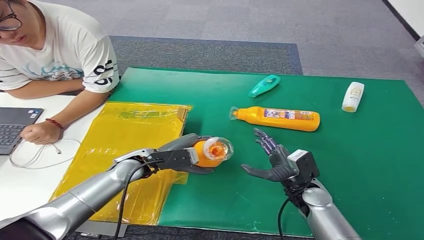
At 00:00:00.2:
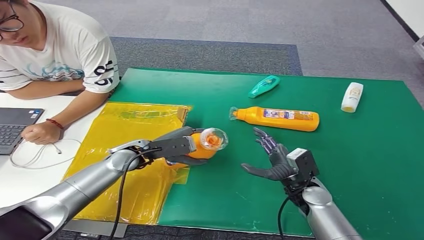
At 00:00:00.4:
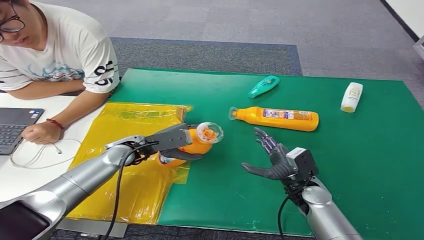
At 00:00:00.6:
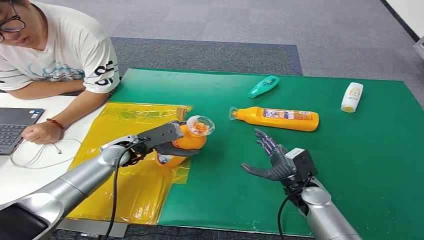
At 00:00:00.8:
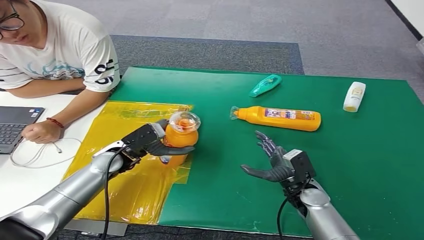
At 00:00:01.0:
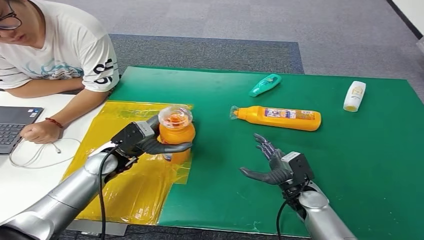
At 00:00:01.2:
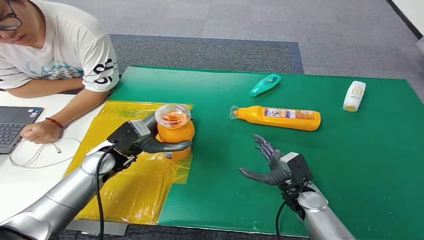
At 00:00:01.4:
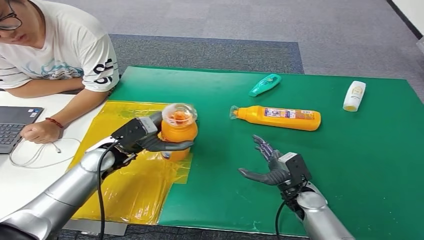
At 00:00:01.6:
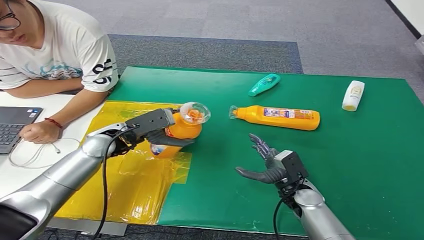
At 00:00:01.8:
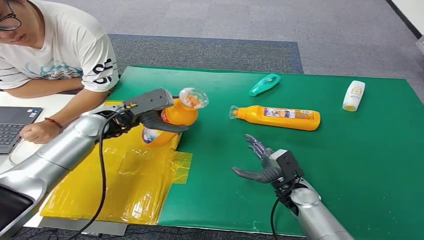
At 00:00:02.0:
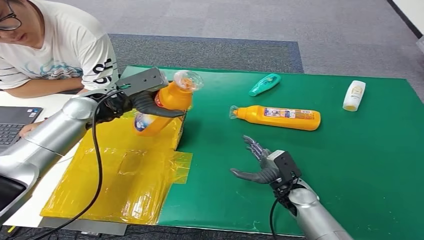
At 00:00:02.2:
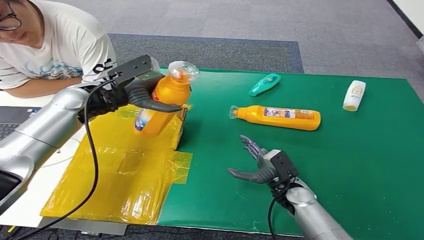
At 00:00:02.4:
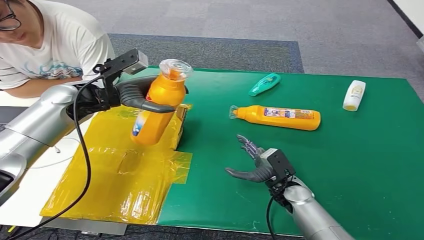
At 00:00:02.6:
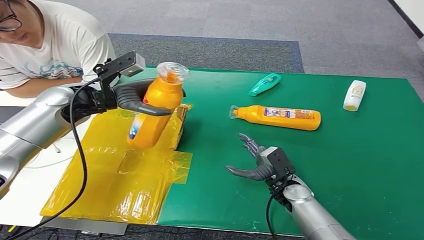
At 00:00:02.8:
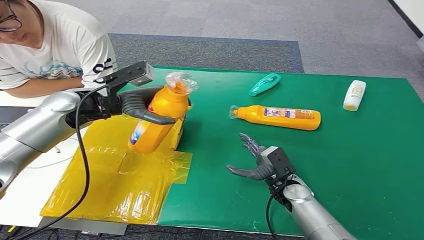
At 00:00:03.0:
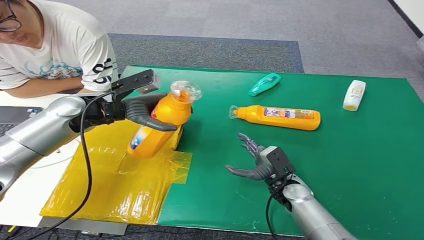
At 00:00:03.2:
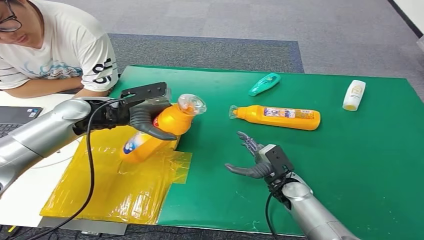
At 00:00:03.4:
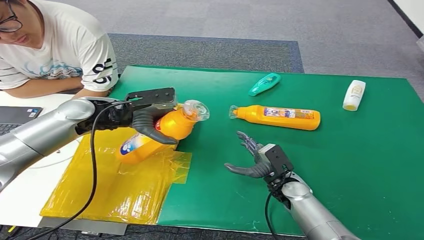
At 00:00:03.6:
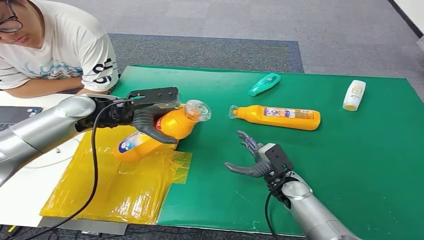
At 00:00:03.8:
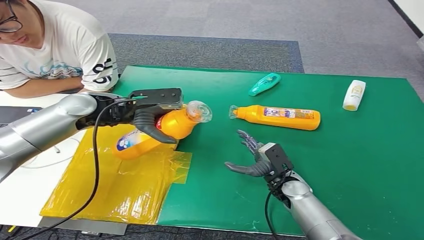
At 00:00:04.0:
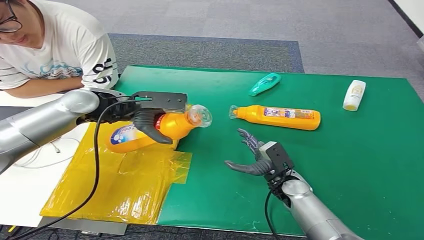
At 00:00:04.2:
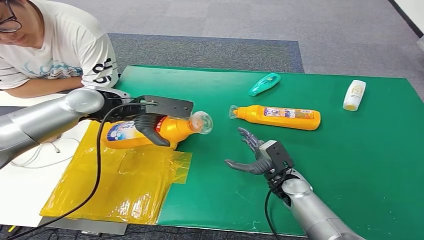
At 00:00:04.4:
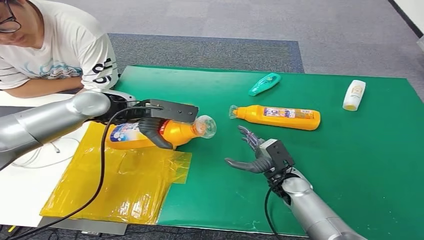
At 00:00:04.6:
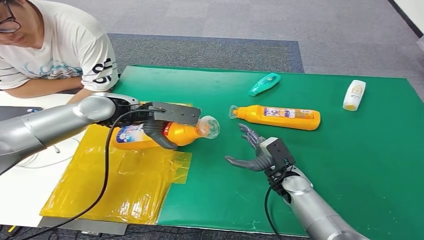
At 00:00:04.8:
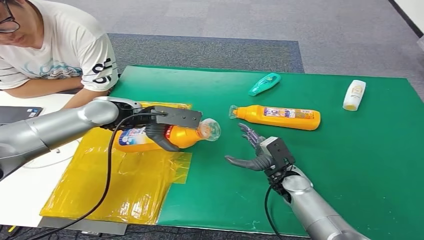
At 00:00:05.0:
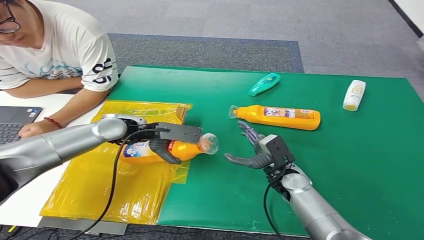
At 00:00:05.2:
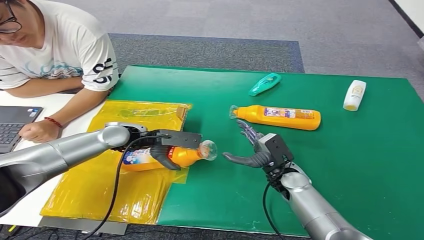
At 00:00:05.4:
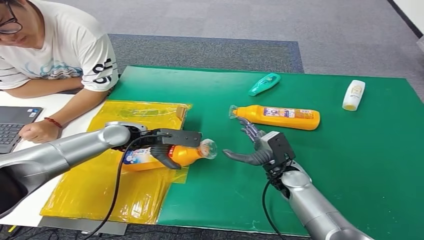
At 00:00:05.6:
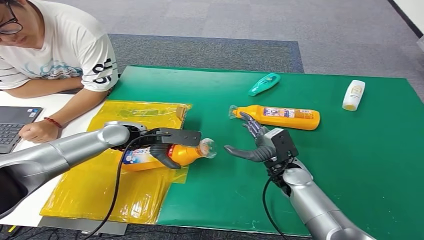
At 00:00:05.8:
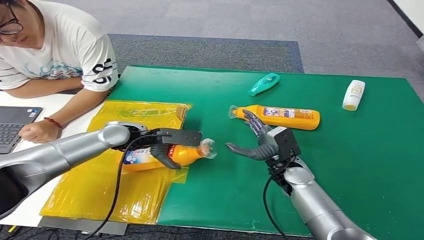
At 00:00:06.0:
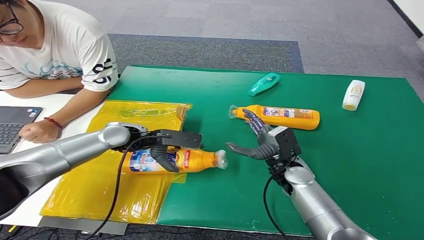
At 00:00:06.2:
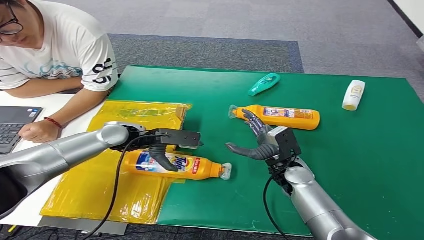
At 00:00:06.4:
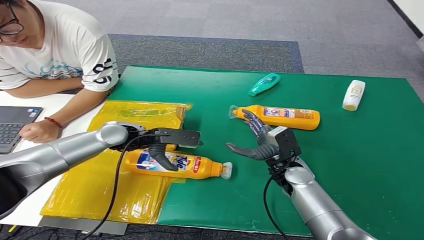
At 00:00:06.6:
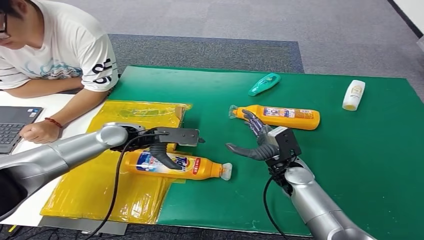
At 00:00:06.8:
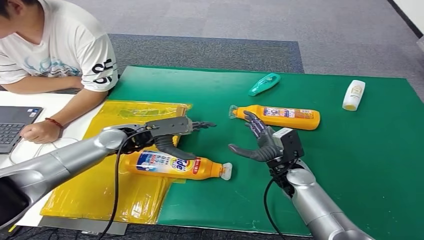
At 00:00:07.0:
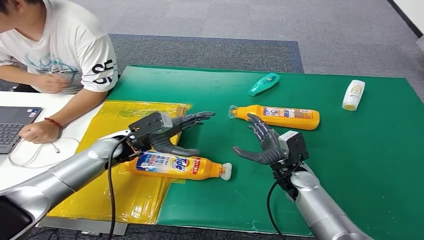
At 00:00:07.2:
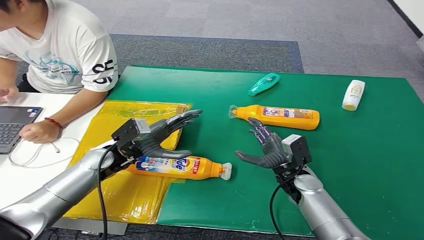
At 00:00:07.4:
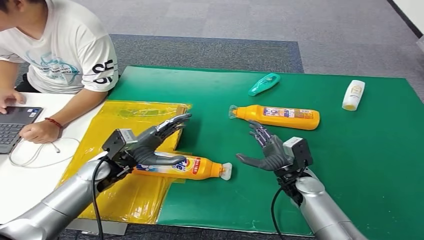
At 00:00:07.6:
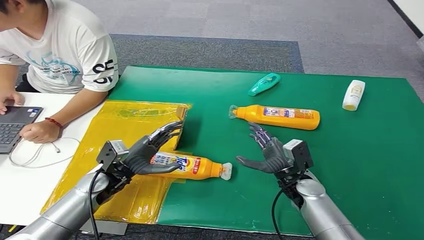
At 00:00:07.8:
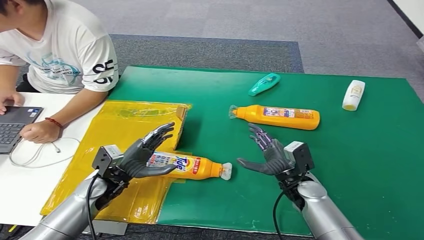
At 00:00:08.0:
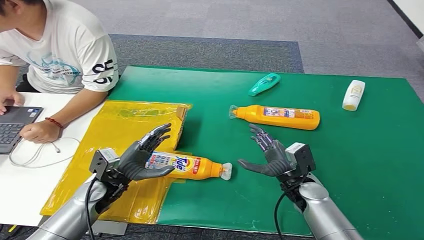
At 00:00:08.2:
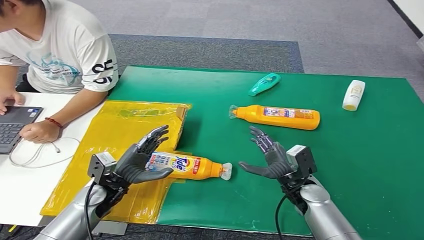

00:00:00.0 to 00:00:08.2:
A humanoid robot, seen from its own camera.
Step, 00:00:00.0 to 00:00:08.2: Turn the bottle to the front side.
00:00:01.6 to 00:00:03.2: The left hand heads upward, covering approximately 5 cm.
00:00:03.2 to 00:00:05.0: The left hand is displaced downward by approximately 5 cm.

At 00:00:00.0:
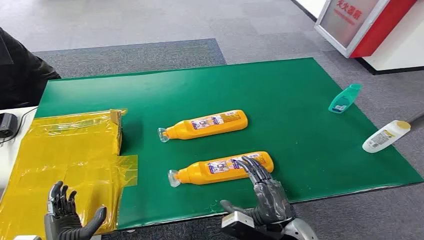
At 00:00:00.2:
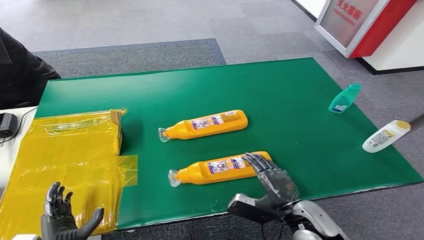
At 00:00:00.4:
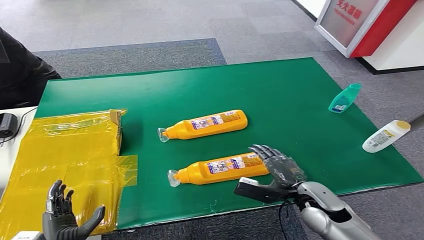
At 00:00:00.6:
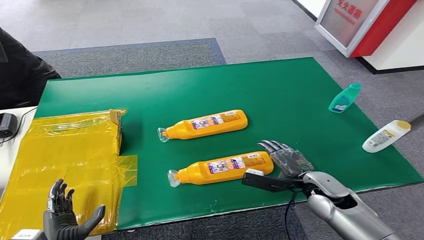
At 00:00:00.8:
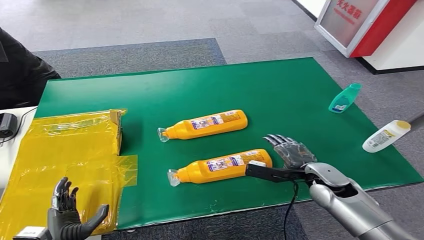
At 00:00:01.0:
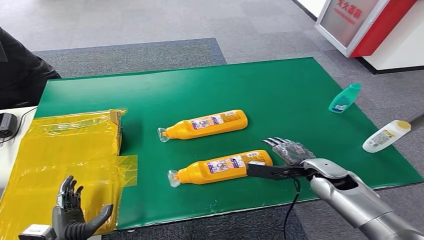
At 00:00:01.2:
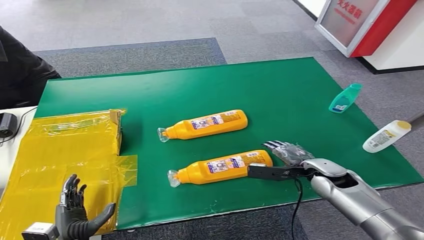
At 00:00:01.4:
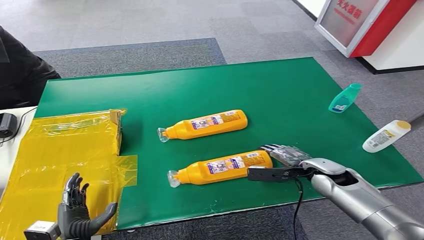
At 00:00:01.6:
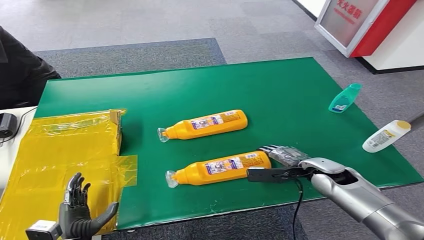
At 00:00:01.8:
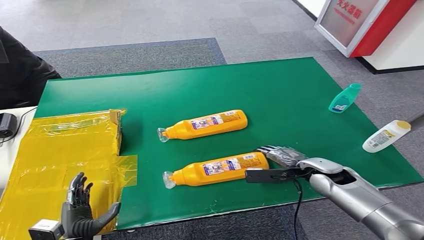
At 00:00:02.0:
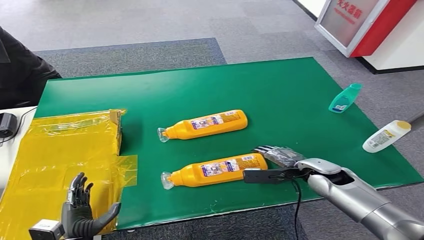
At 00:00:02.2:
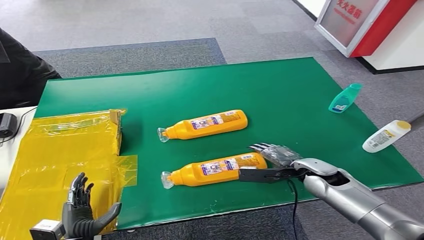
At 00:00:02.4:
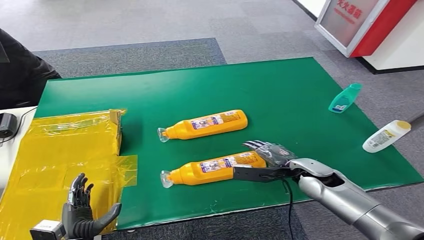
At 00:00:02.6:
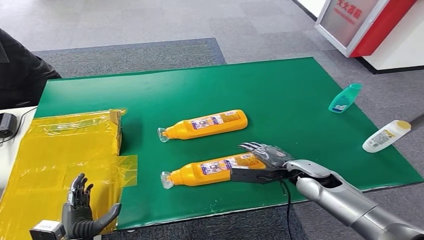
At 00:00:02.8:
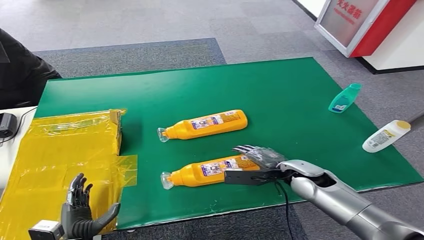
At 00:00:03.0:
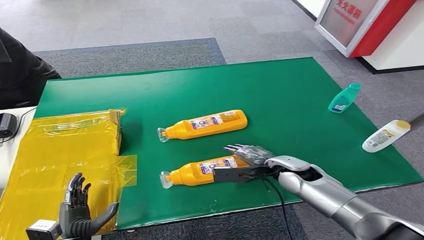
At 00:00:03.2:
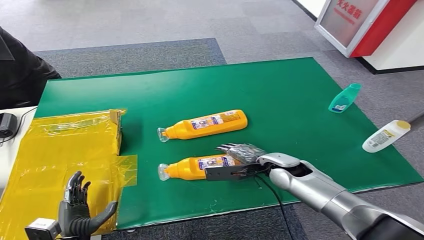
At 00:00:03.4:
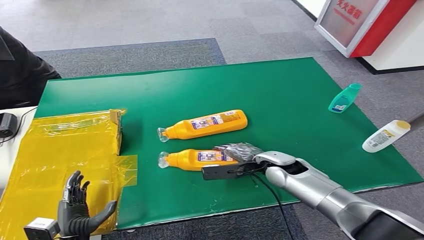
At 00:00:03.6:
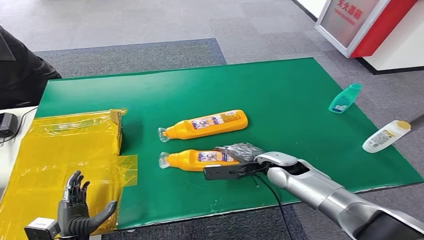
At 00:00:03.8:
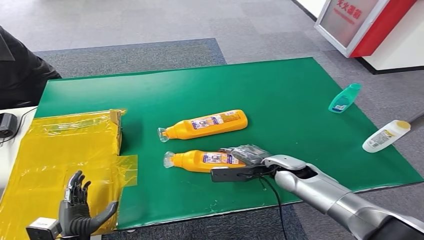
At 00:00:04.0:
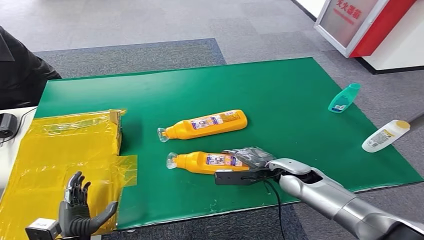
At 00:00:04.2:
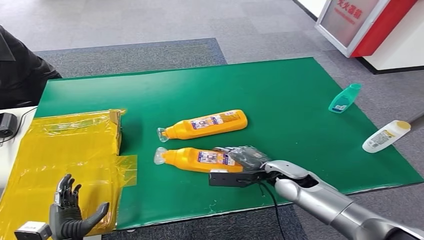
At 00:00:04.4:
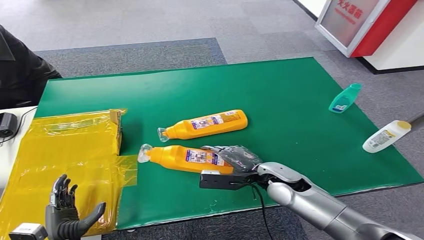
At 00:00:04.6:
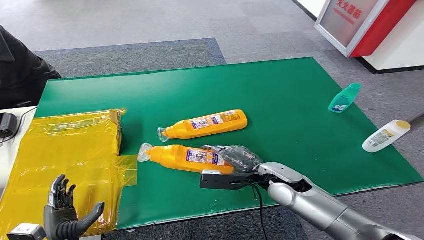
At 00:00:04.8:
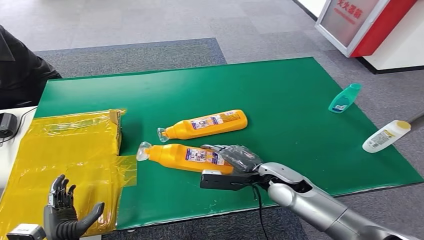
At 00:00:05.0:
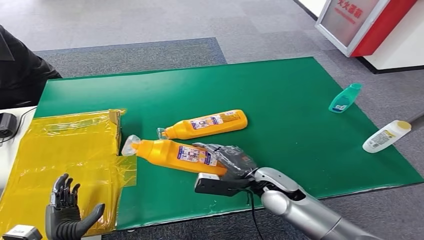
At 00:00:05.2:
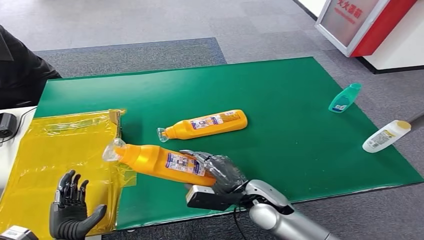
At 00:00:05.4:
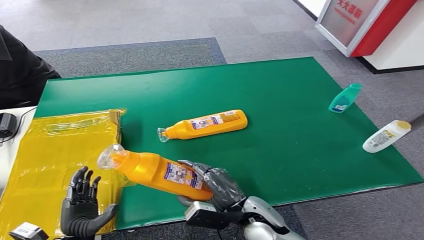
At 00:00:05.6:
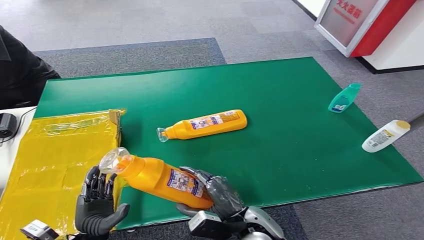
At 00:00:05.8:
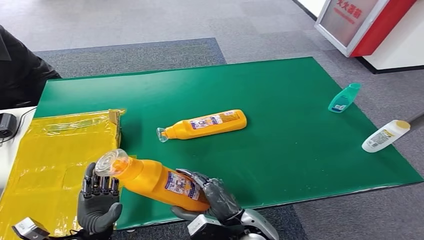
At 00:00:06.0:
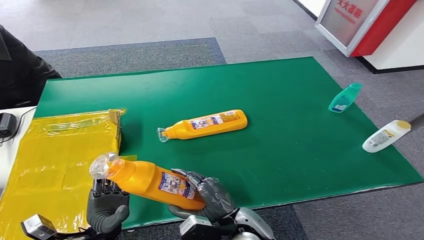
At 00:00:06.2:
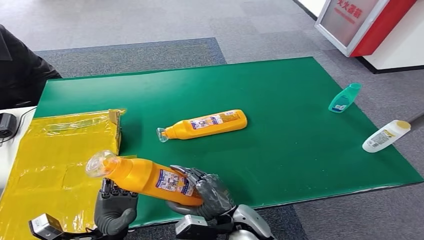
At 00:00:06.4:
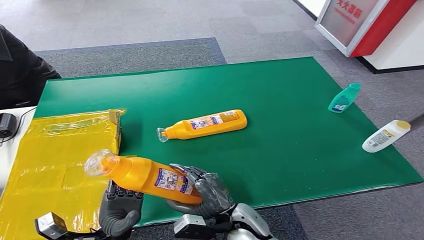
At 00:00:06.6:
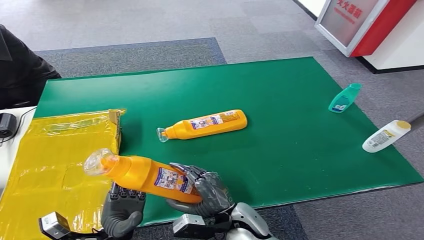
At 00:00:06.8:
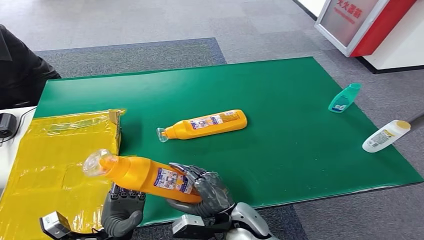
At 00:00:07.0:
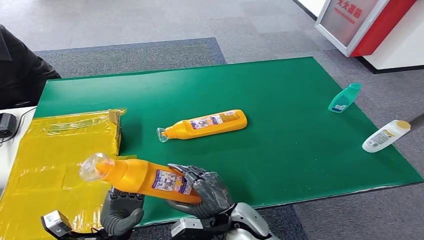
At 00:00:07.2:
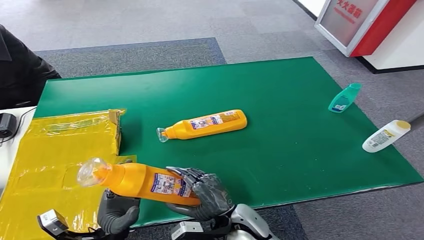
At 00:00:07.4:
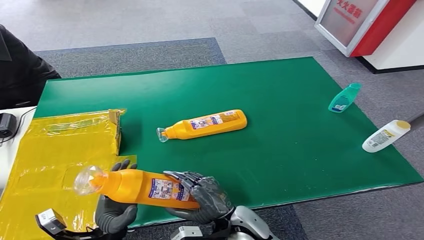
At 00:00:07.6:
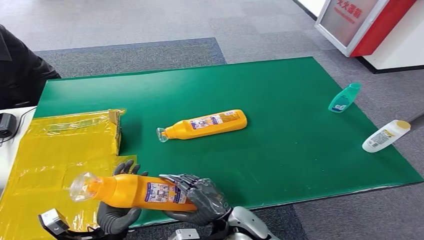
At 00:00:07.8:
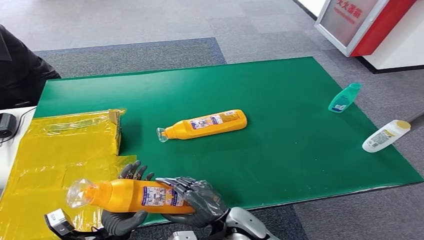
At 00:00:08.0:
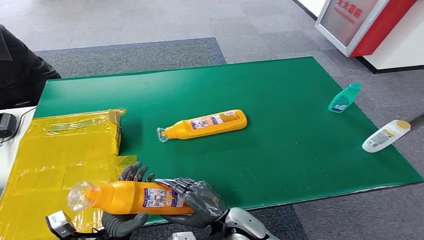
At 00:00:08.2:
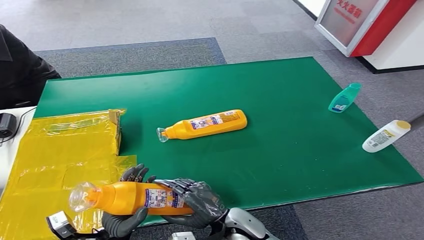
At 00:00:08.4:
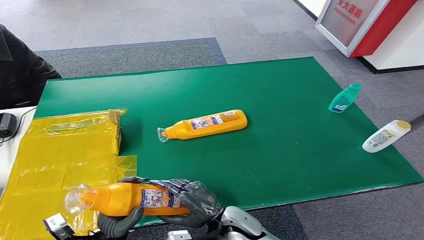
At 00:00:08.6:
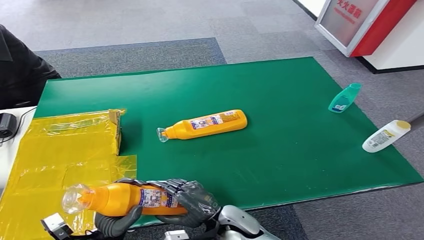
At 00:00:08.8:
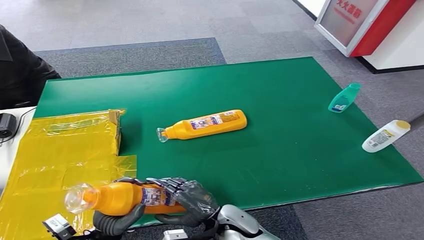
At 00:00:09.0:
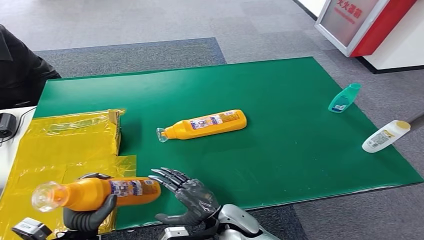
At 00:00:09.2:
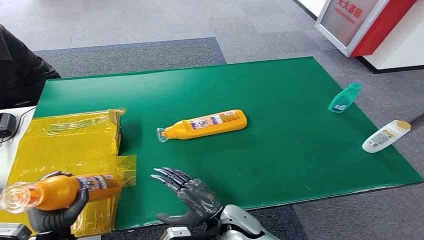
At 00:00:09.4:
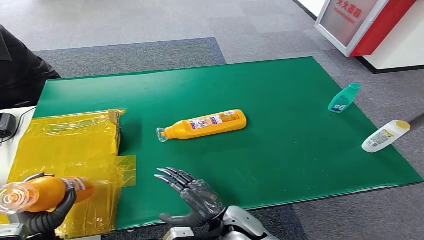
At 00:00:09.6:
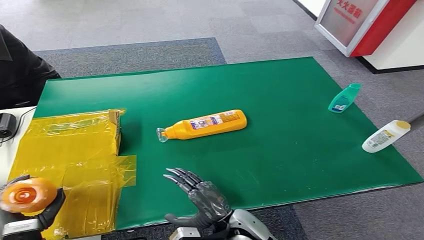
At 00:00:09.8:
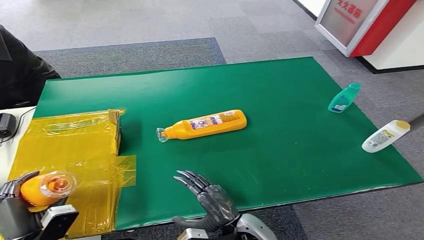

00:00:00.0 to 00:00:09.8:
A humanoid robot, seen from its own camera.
Step, 00:00:00.0 to 00:00:04.4: Pick up the bottle from the table.
00:00:01.4 to 00:00:02.8: The right hand travels to the left by approximately 5 cm.
00:00:04.2 to 00:00:05.6: The right hand moves backward and to the left, roughly 15 cm; the left hand travels to the right by approximately 5 cm.
00:00:07.0 to 00:00:08.4: The hands stay close to where they were, moving slightly.
00:00:08.4 to 00:00:09.8: The left hand shifts roughly 15 cm to the left.
